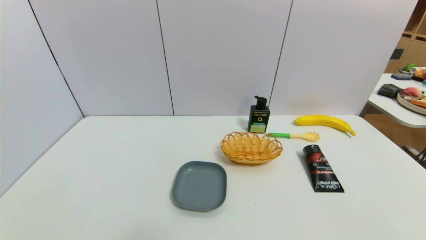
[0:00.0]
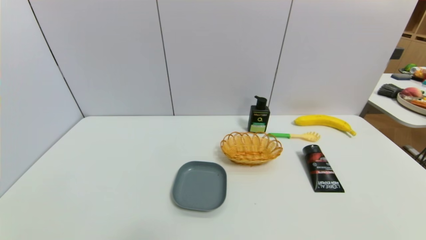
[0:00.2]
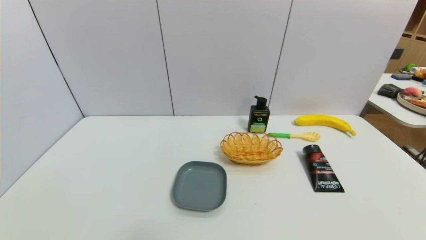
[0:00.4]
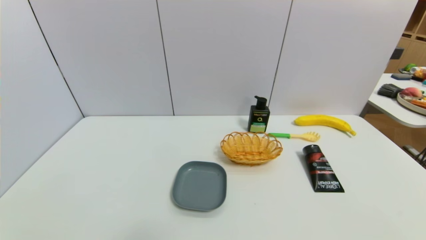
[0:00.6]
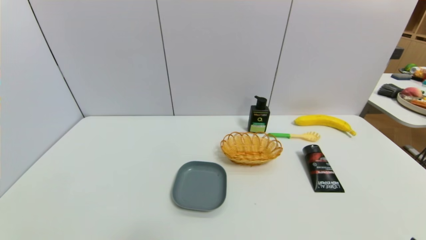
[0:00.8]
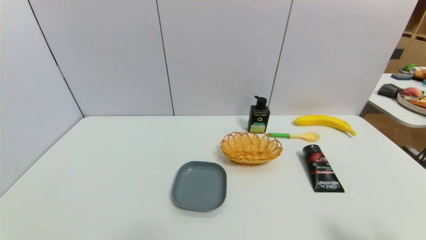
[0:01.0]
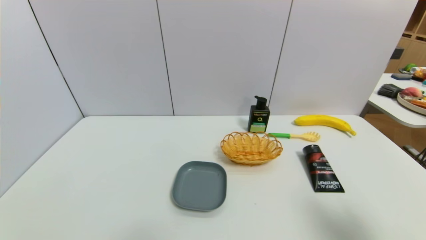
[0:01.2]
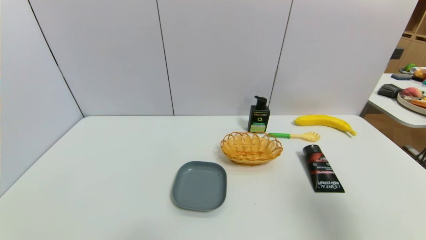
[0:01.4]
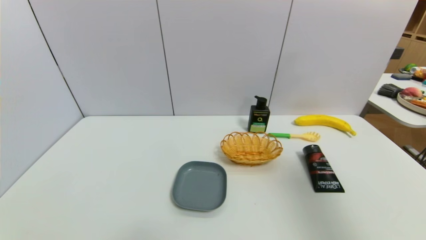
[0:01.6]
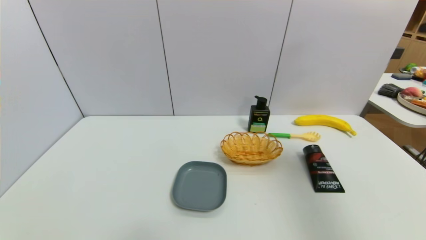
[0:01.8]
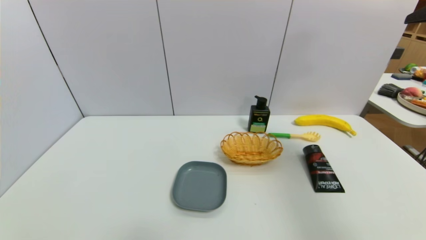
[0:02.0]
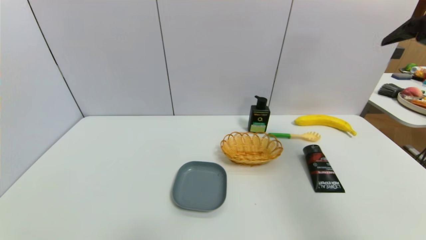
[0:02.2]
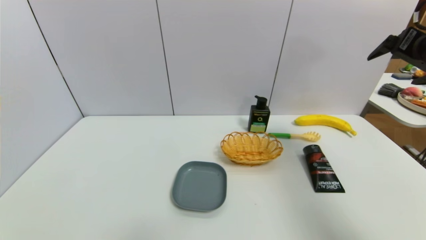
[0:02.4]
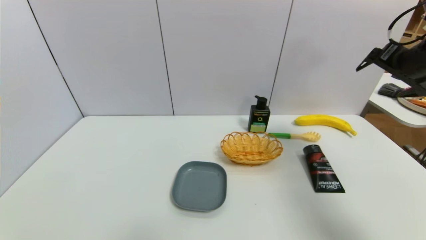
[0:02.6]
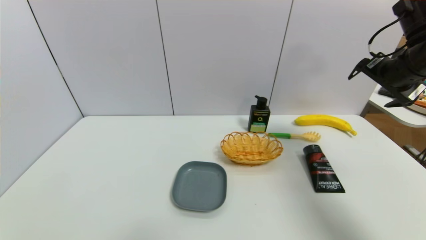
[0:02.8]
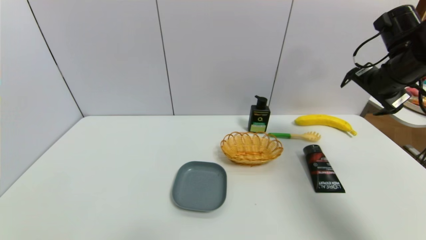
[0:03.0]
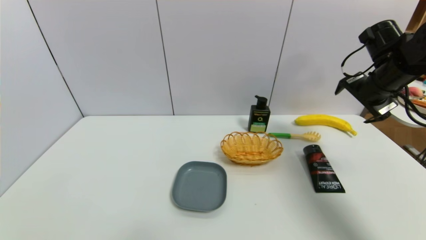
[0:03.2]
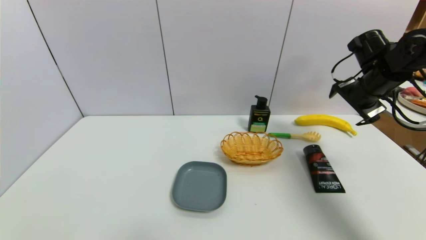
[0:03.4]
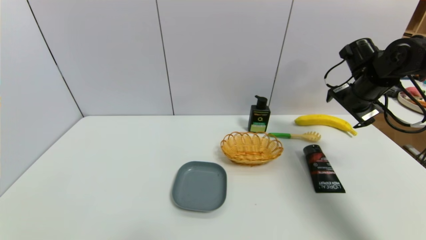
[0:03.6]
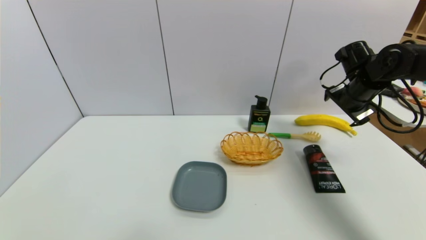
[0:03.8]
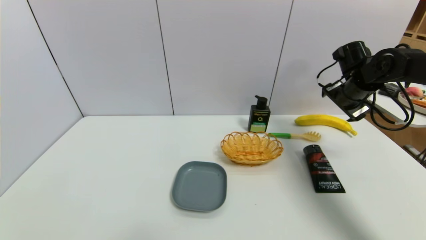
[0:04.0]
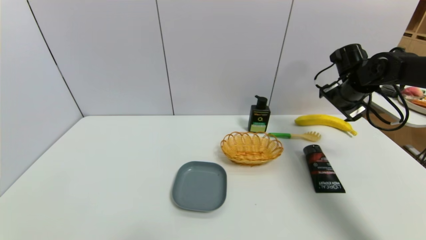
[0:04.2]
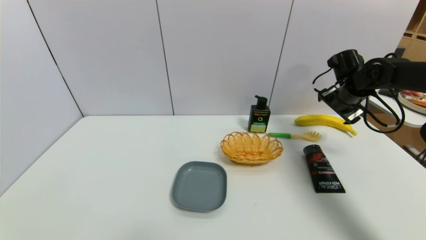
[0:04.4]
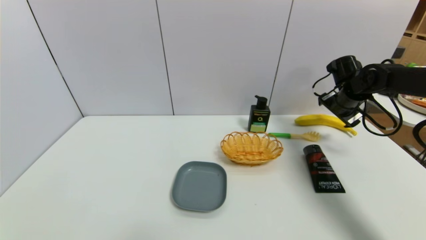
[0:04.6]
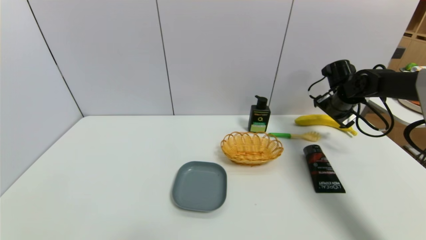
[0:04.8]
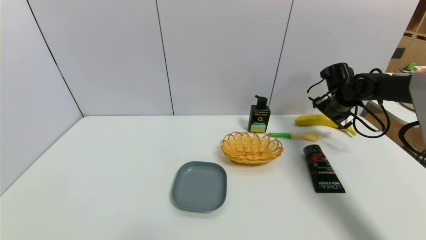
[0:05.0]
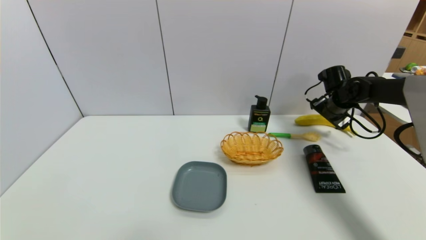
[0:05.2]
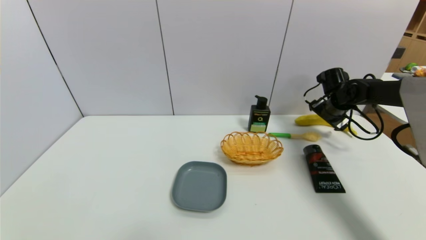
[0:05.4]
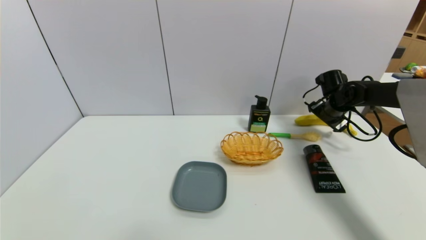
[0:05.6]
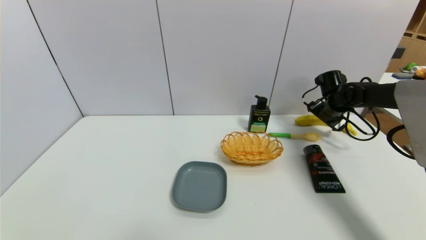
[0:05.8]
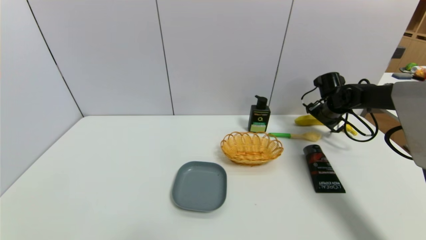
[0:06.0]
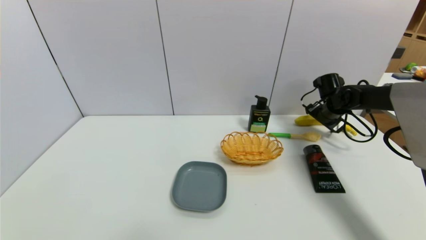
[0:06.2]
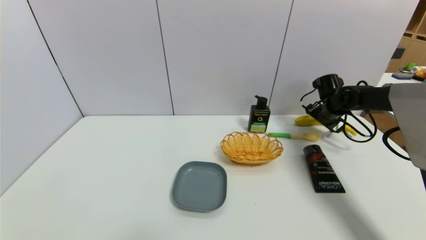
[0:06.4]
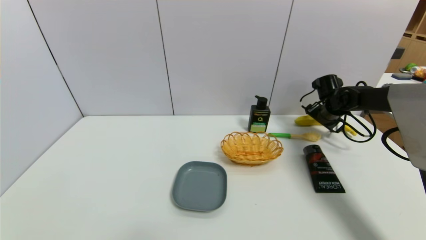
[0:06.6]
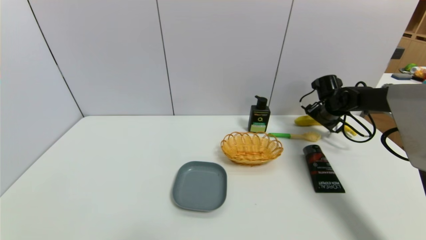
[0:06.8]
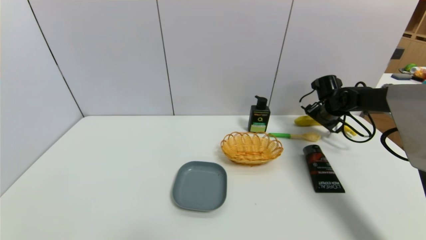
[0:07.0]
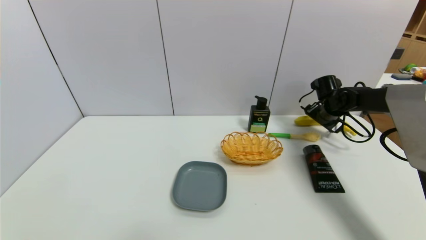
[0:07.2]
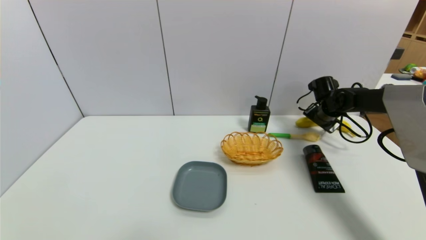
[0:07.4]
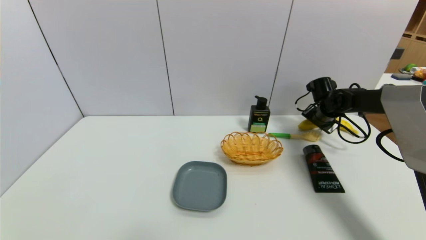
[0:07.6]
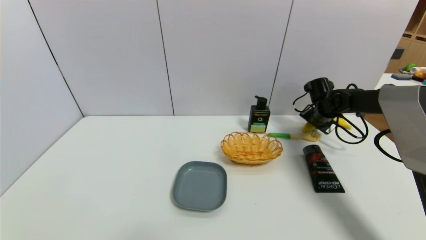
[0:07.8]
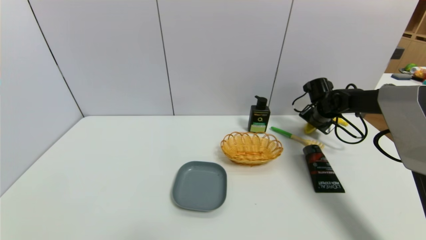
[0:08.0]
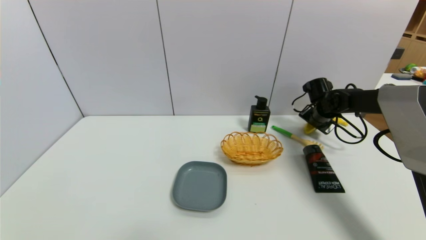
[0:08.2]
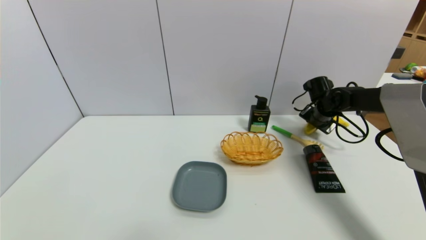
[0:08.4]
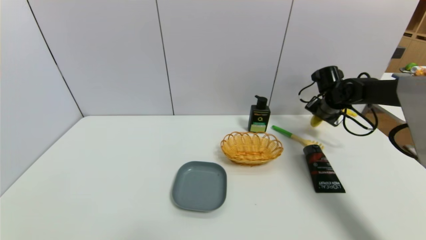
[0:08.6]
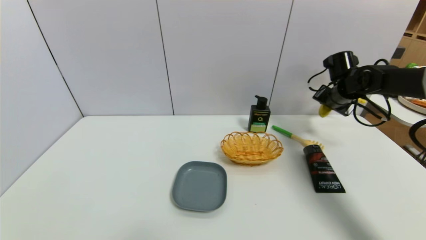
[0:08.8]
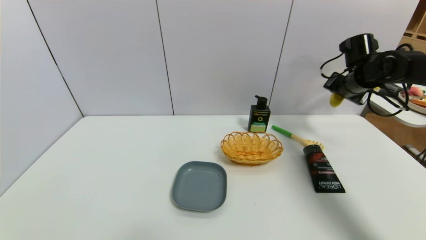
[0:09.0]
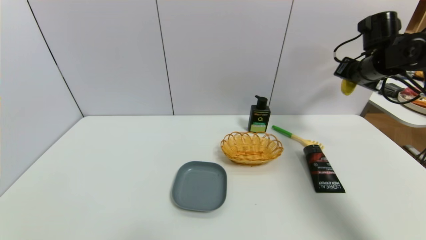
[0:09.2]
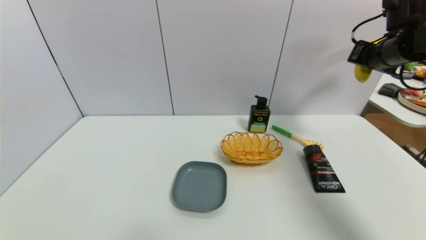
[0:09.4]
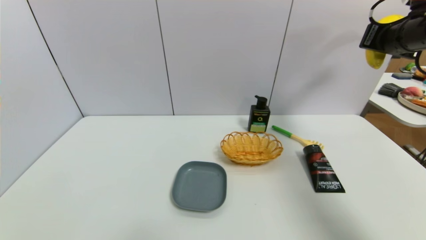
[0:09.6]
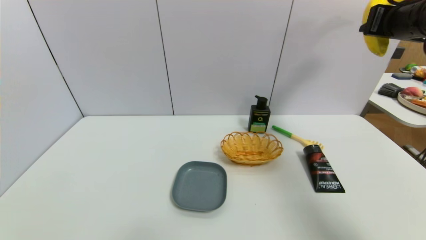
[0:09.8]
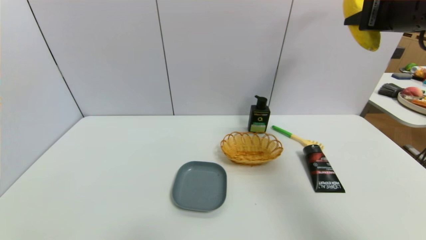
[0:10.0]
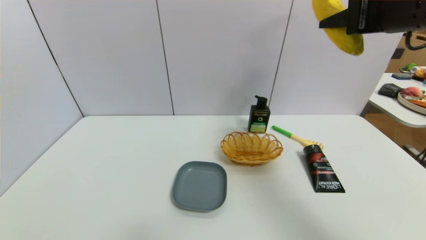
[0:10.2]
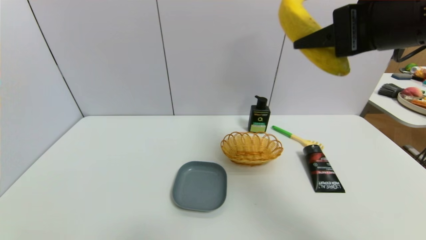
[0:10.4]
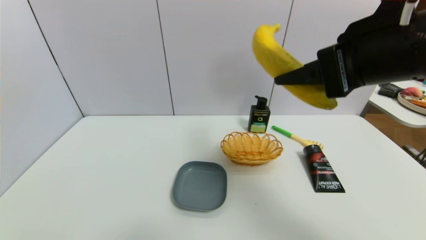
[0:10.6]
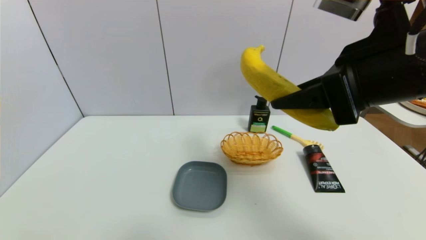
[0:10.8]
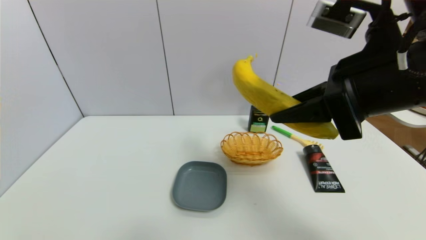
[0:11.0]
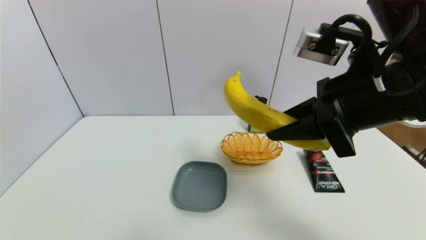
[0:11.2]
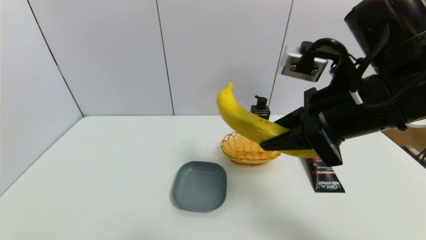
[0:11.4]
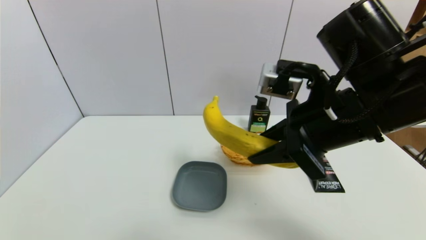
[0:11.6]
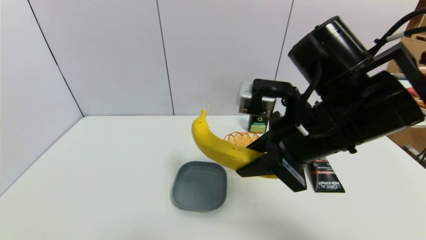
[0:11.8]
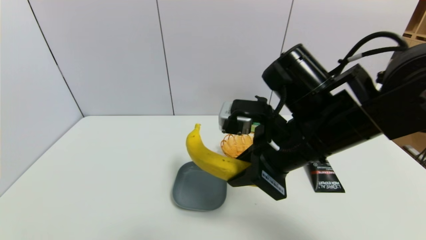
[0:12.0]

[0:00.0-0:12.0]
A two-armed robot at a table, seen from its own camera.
Task of the whole recording: use a gripper to pick the target object and place on the dish.
Step, 0:00.0 to 0:07.8: Grasp the banana with the right gripper.
0:00.0 to 0:01.6: The right gripper heads upward and forward, covering some 35 cm.
0:01.6 to 0:03.0: The right gripper heads forward, covering about 20 cm.
0:03.0 to 0:04.4: The right gripper moves forward and downward, some 15 cm.
0:04.4 to 0:06.0: The right gripper shifts approximately 5 cm downward.
0:06.0 to 0:07.6: The right gripper closes.
0:07.6 to 0:09.0: The right gripper moves upward and backward, some 15 cm, and closes.
0:09.0 to 0:10.4: The right gripper is displaced backward, upward and to the left by roughly 30 cm.
0:10.4 to 0:12.0: The right gripper heads downward and to the left, covering roughly 15 cm.

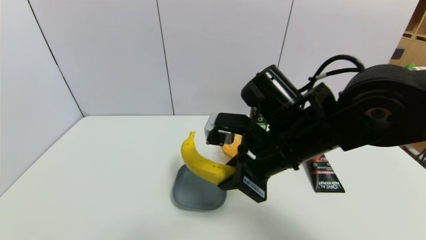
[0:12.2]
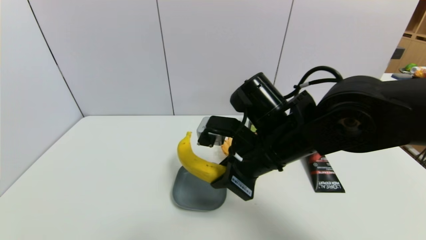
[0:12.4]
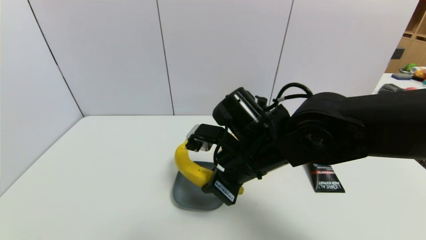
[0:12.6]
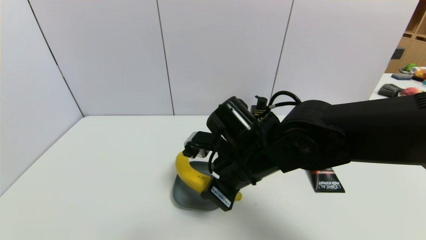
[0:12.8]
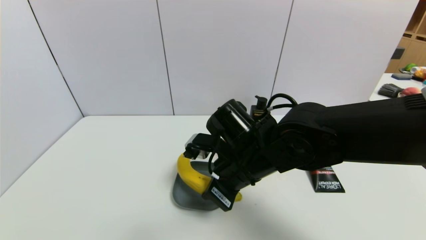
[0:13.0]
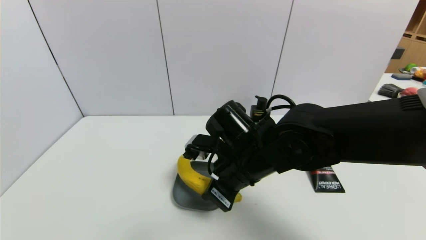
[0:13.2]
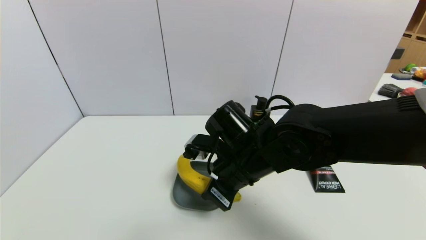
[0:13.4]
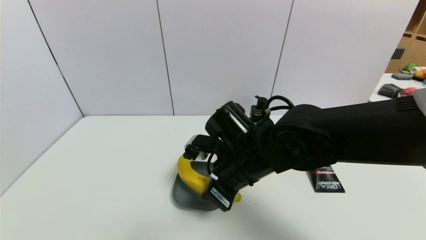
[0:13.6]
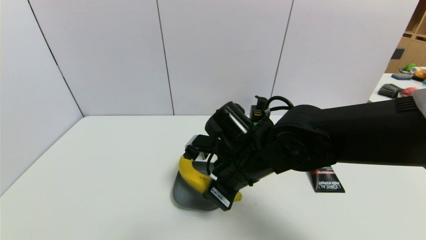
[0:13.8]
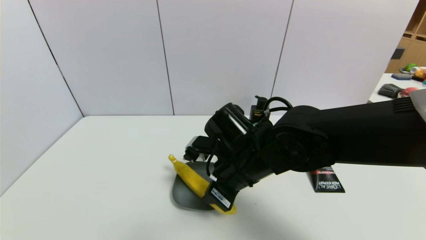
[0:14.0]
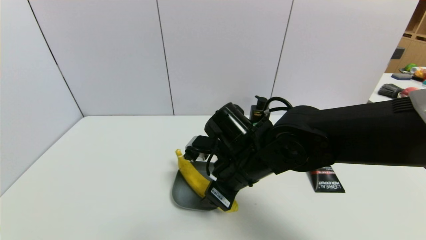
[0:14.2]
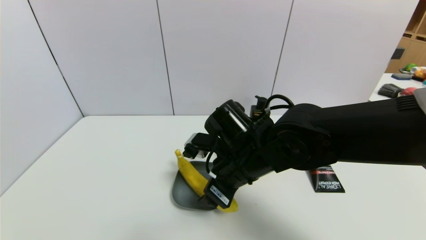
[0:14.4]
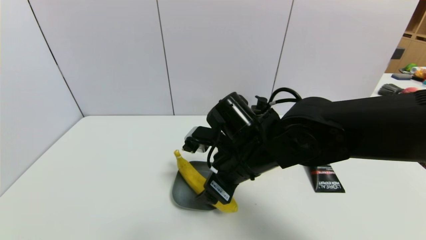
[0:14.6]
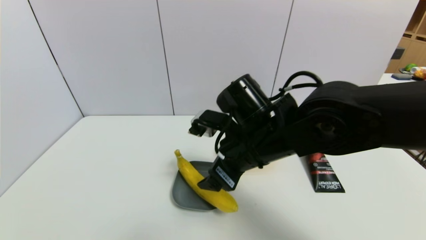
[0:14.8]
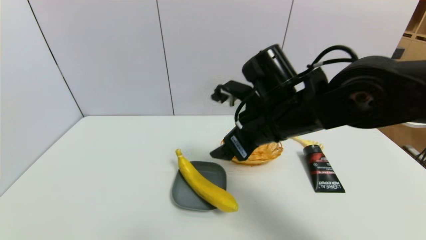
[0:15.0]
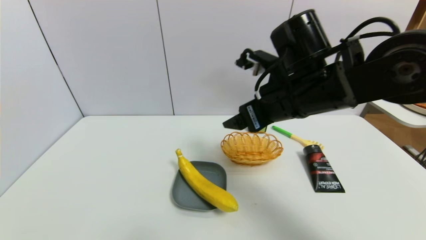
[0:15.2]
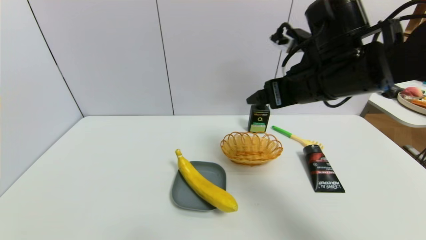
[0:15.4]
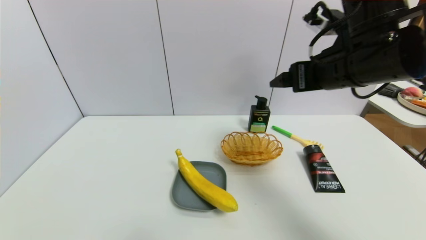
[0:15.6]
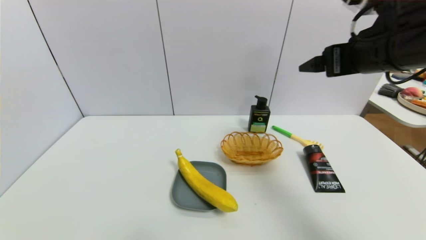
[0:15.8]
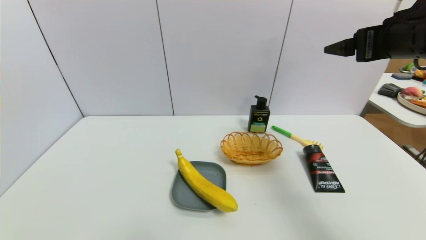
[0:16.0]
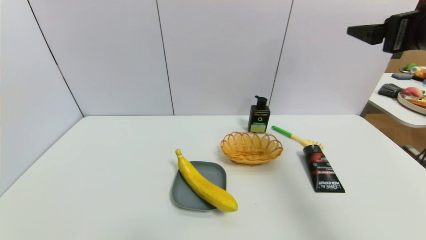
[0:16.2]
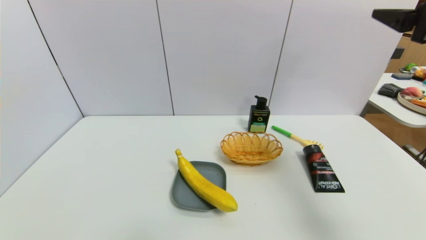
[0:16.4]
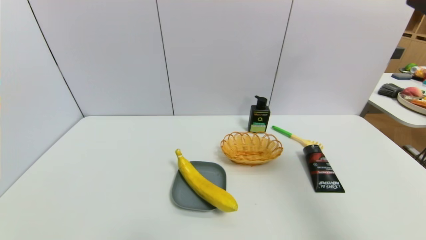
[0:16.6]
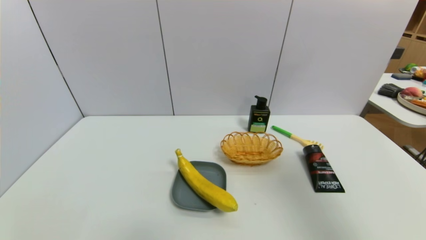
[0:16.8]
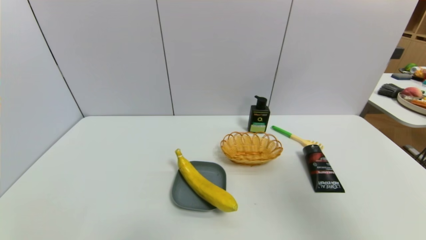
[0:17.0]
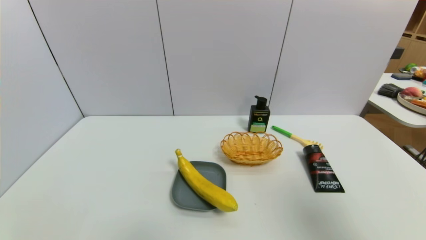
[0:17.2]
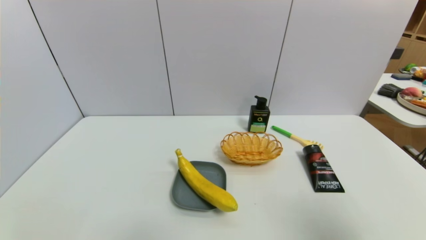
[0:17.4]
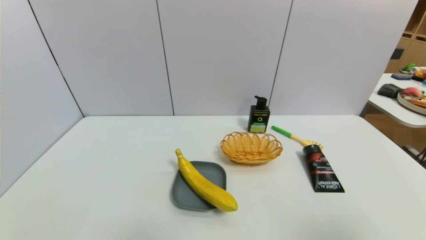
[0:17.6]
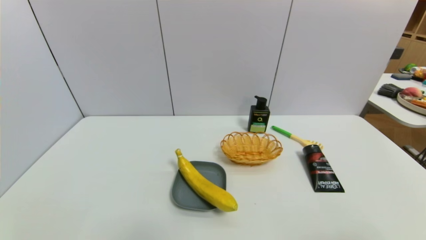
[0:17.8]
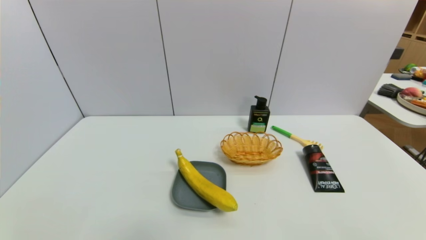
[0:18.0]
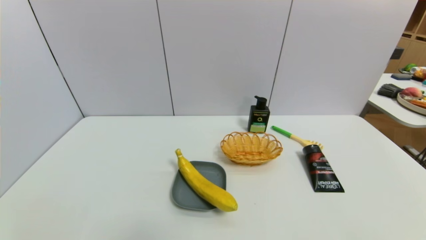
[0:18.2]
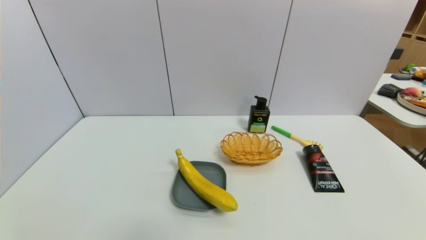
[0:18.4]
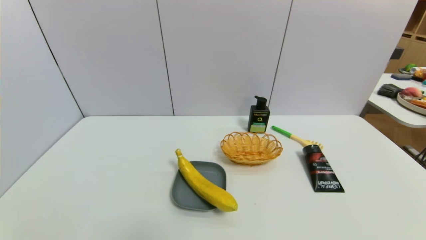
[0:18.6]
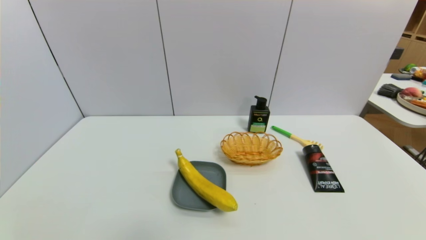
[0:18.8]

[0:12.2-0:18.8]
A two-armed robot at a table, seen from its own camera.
Task of the whole recording: use a gripper to pick the target object and place on the dish.
Step, 0:12.2 to 0:15.0: Place the banana on the dish with the right gripper.
0:12.2 to 0:13.8: The right gripper is displaced downward by some 5 cm.
0:13.8 to 0:15.4: The right gripper shifts about 20 cm upward and to the right, and opens up.
0:15.4 to 0:17.2: The right gripper moves backward and to the right, about 25 cm.
0:17.2 to 0:18.8: The right gripper travels downward and backward by about 20 cm.
